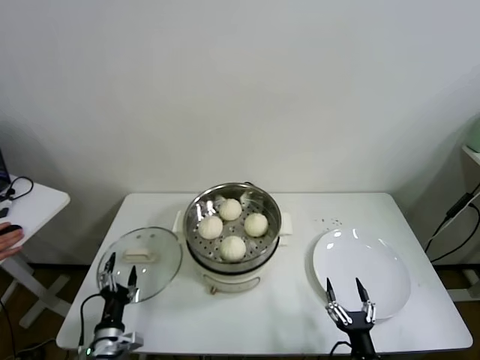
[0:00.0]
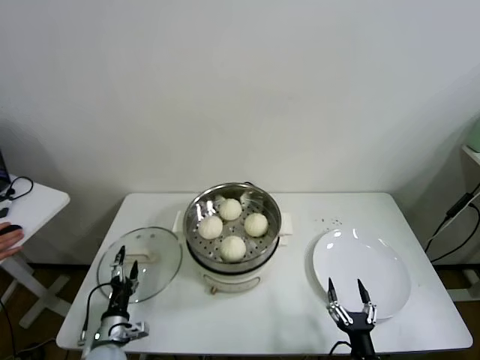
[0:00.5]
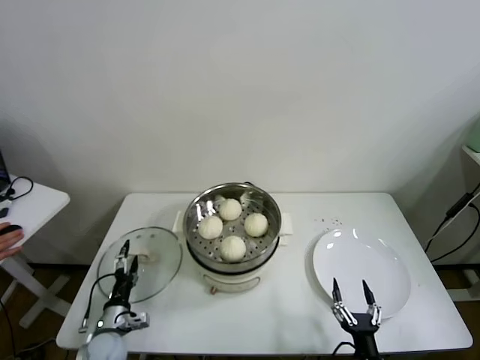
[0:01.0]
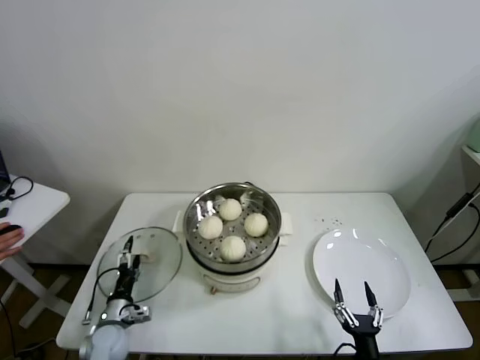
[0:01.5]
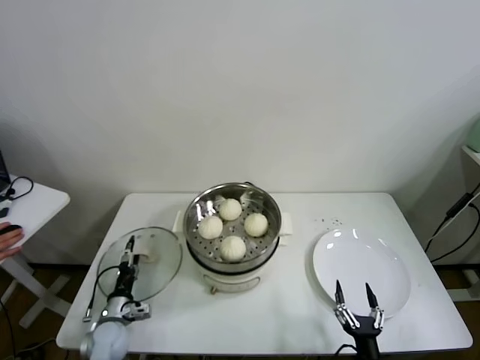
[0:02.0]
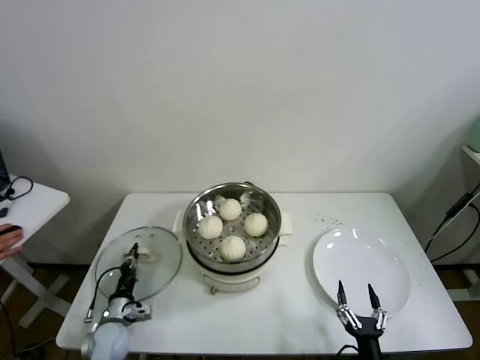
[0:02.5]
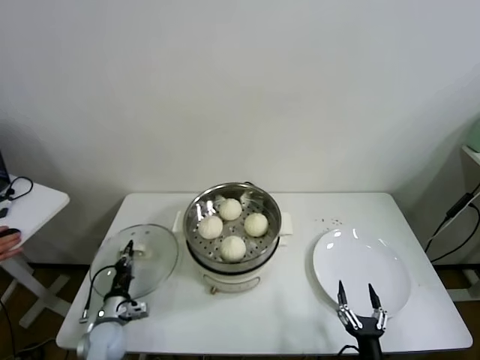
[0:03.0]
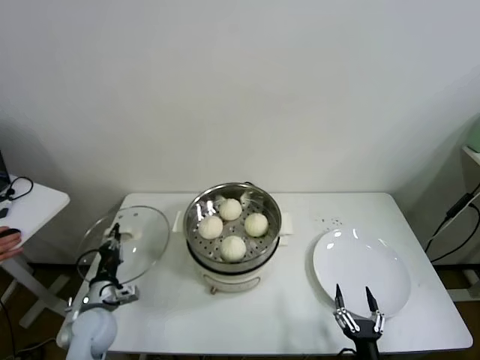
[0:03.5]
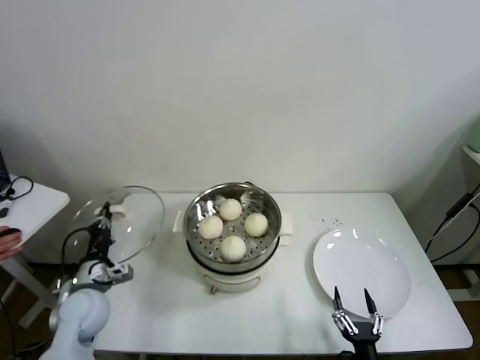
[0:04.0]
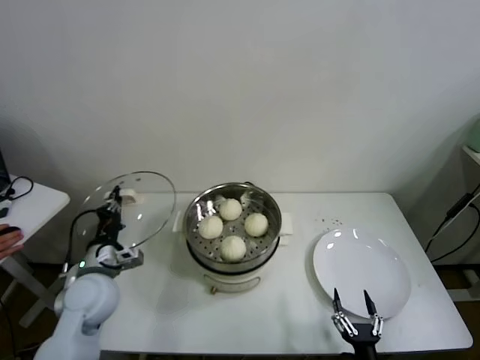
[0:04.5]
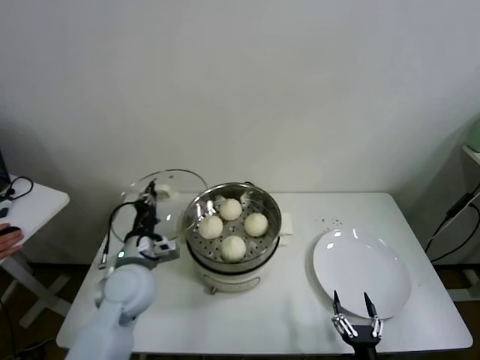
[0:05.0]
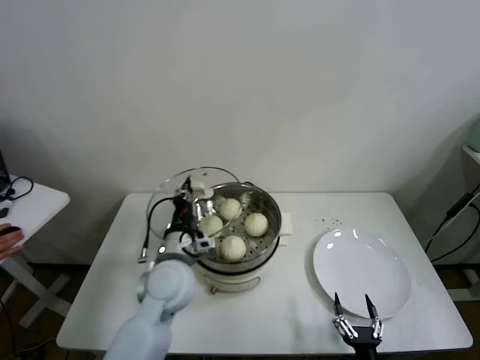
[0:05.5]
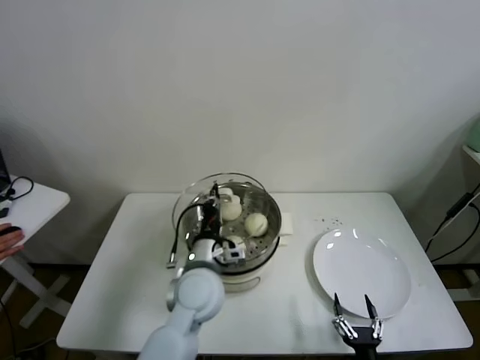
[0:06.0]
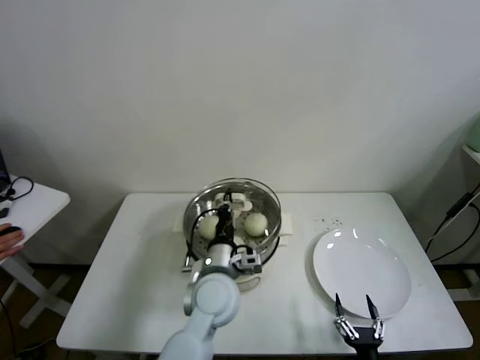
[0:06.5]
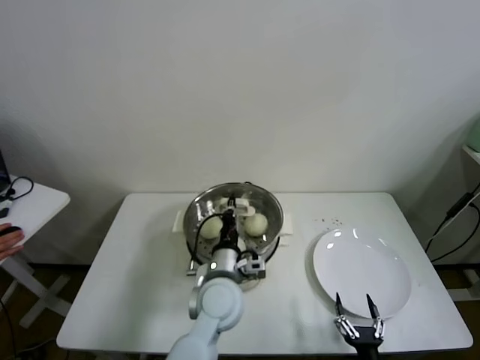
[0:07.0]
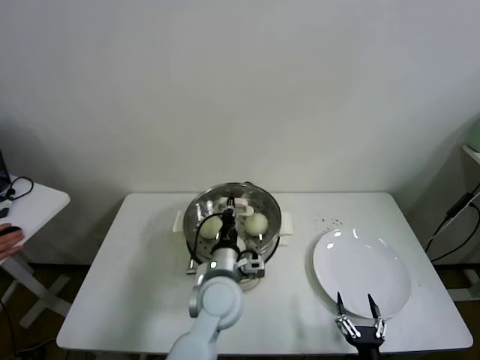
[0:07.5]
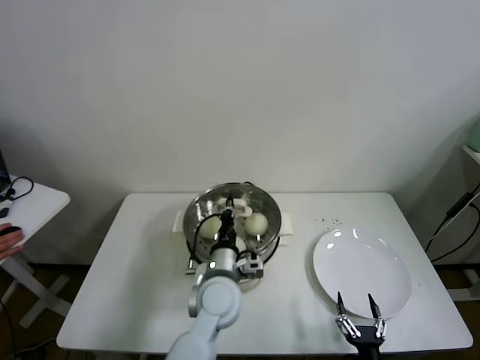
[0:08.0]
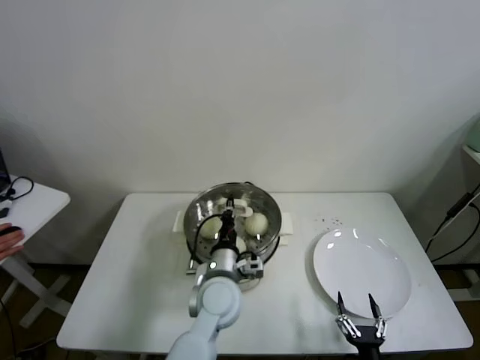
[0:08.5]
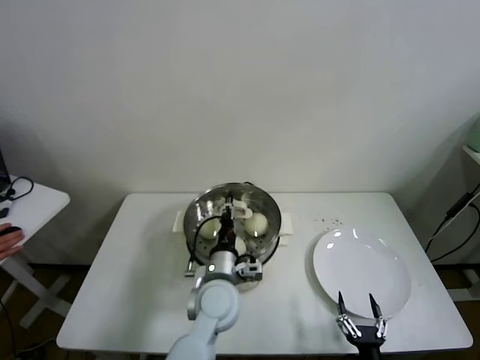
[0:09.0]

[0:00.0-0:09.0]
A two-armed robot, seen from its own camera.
Task of the whole recording: take steamed baozi put them in steamer.
Step, 0:00.0 to 0:02.0: Grasp the pot lid with left gripper.
Step, 0:03.0 to 0:08.5: Place the pot lid on the steamer with left gripper.
0:00.0 to 0:02.0: The left gripper travels forward by roughly 10 cm.
0:02.0 to 0:04.5: The left gripper heads upward, covering some 20 cm, and closes up.
0:04.5 to 0:07.0: The left gripper shifts about 25 cm to the right.
0:07.0 to 0:09.0: The grippers make only small movements.

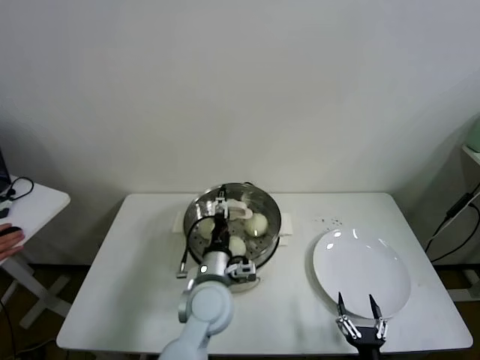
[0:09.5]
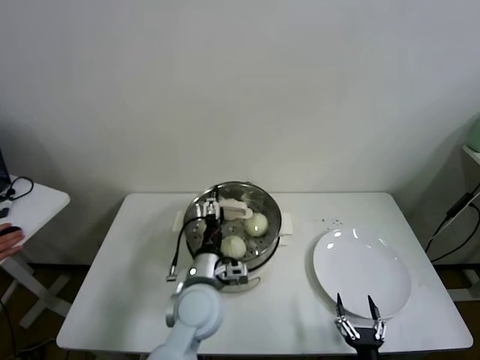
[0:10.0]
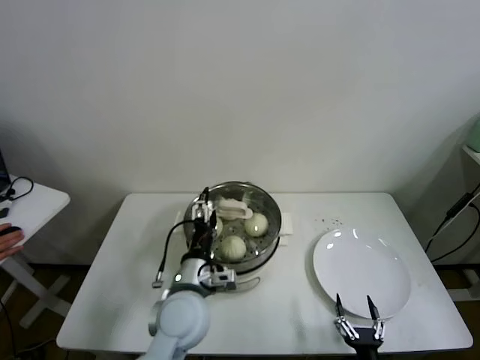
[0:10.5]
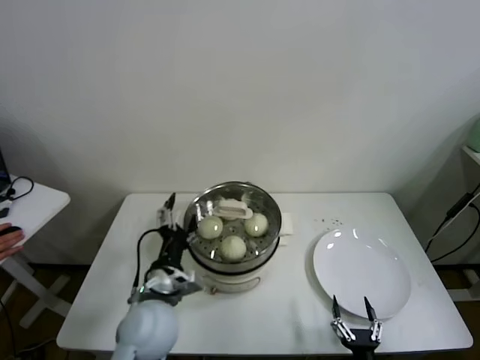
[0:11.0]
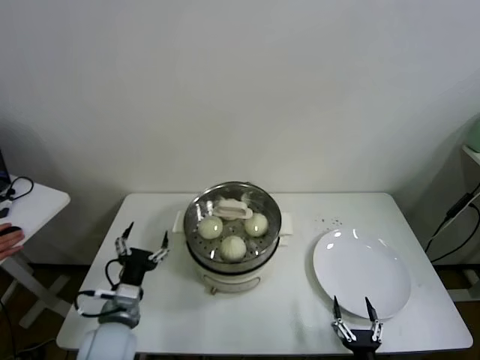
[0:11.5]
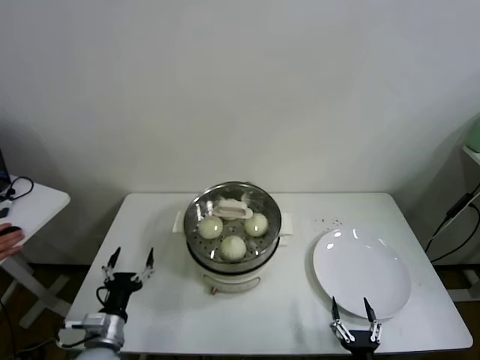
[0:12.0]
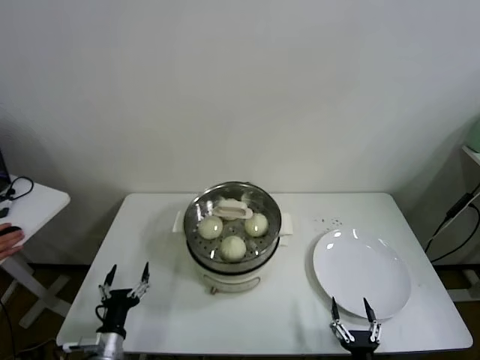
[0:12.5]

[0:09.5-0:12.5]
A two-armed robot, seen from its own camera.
Task of the whole recording: take steamed baozi put them in steamer.
0:09.5 to 0:11.0: The left gripper is displaced to the left by roughly 10 cm.
0:11.0 to 0:12.5: The left gripper shifts approximately 25 cm downward, to the left and backward.
